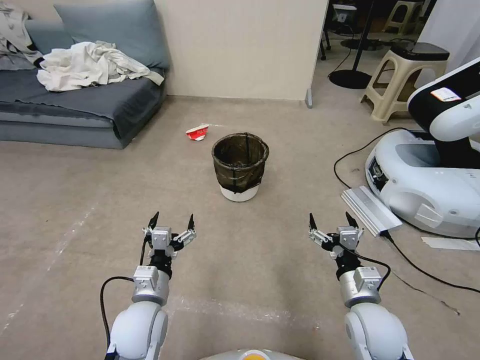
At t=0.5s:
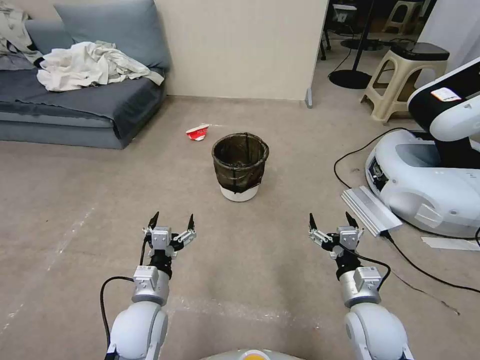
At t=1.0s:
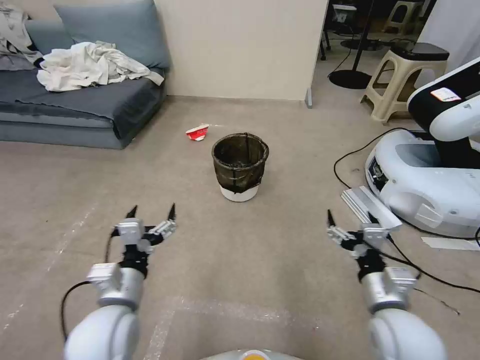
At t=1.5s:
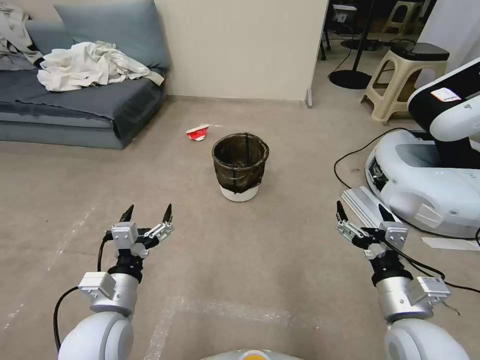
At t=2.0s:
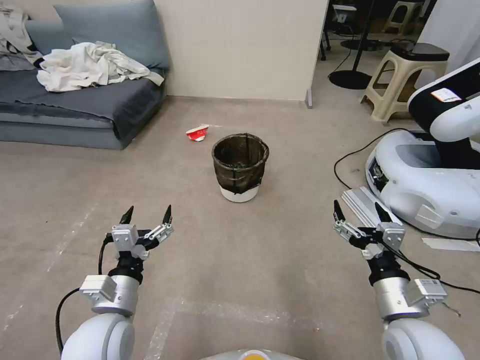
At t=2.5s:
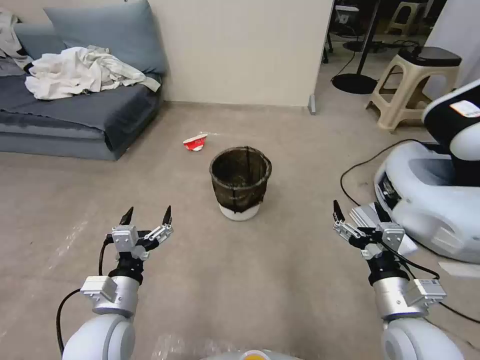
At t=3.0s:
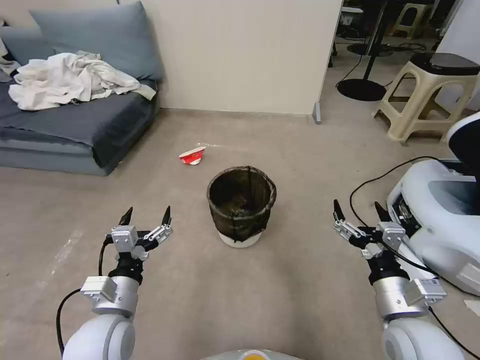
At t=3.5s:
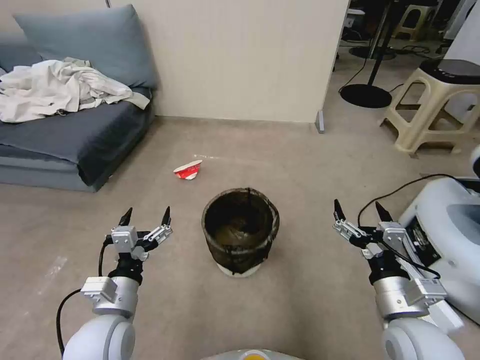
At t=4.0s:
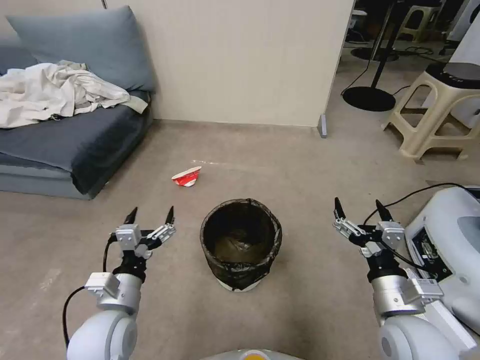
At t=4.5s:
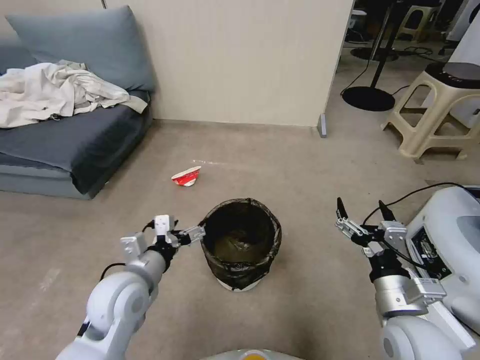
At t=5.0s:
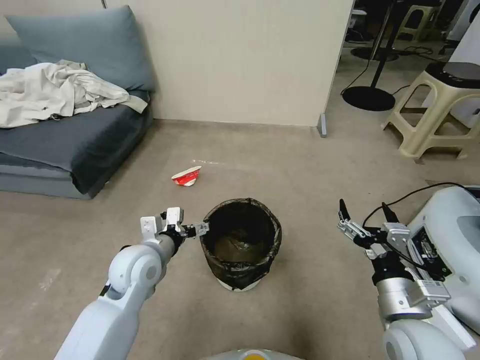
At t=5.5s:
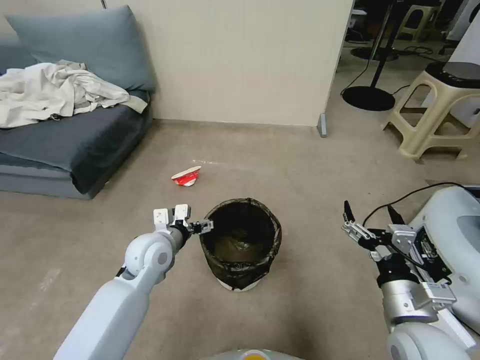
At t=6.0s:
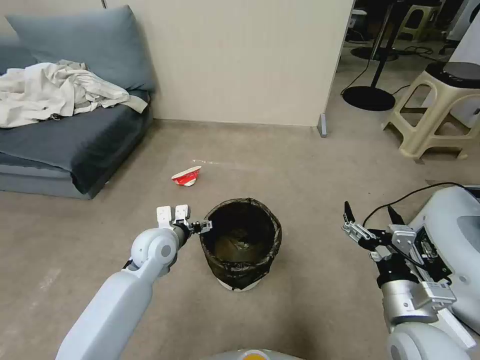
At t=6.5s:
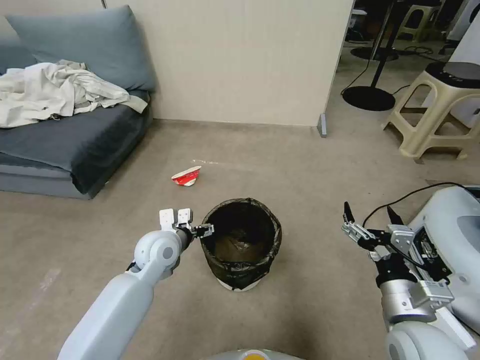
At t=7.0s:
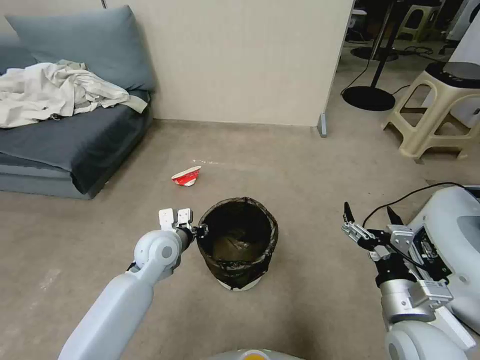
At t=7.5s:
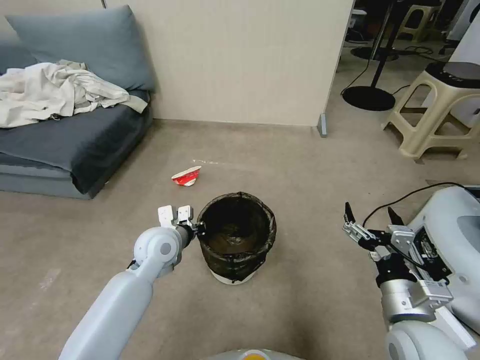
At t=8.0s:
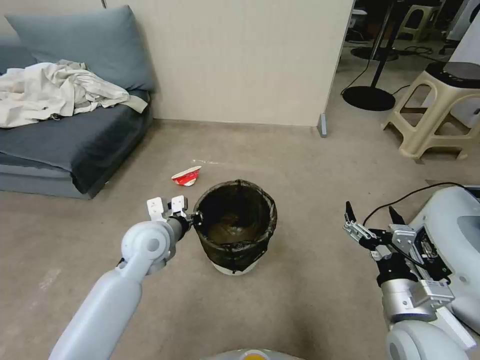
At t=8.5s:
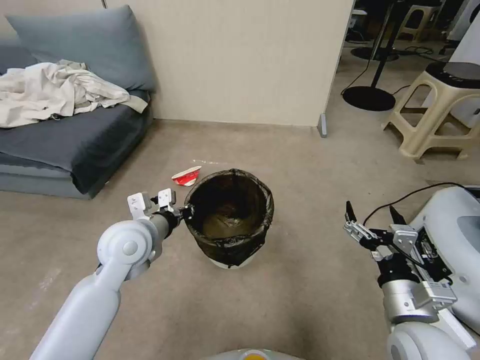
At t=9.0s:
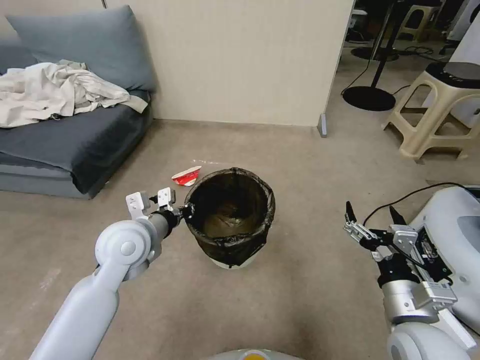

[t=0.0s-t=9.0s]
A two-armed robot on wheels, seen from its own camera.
Task of the whole recording: Pick up the trash can from the floor.
t=2.0s to t=4.5s: The left gripper heads forward, covering some 5 cm.
t=4.5s to t=7.0s: The left gripper travels forward by roughly 10 cm, and closes up.
t=7.0s to t=9.0s: The left gripper travels upward by approximately 10 cm.
